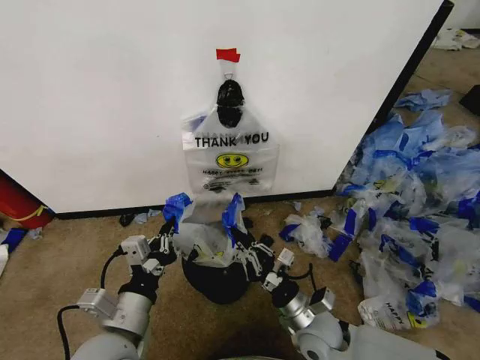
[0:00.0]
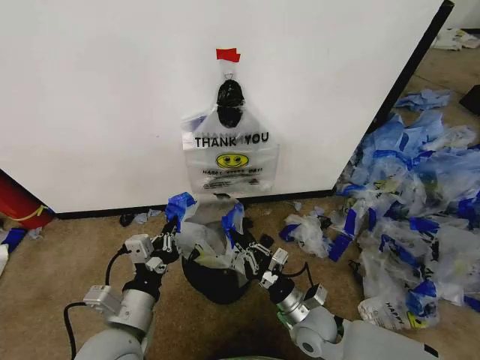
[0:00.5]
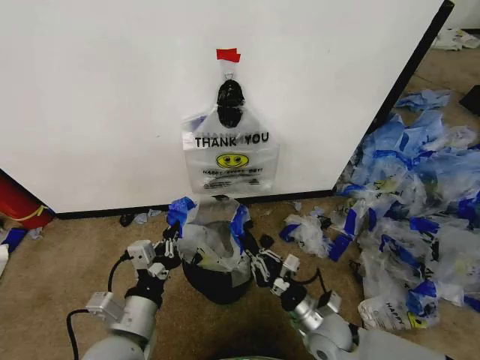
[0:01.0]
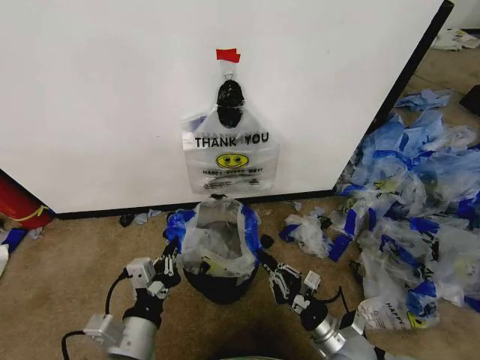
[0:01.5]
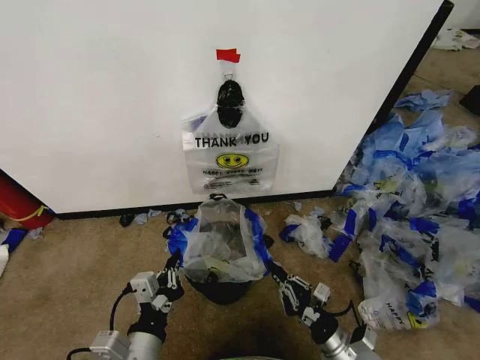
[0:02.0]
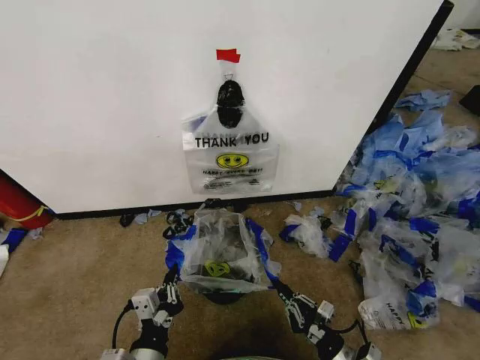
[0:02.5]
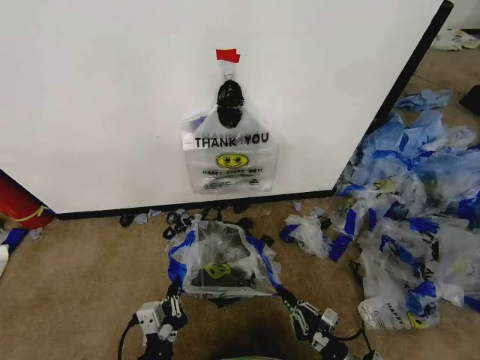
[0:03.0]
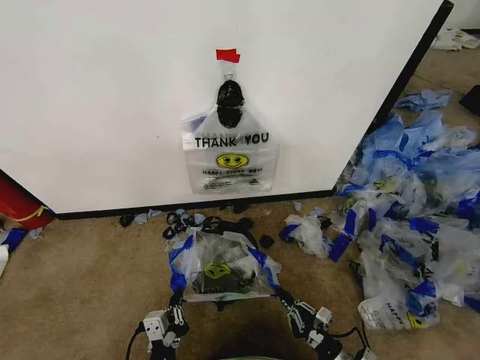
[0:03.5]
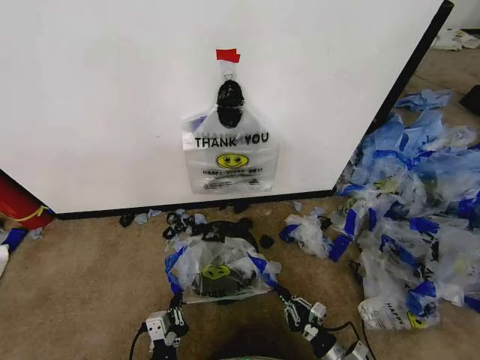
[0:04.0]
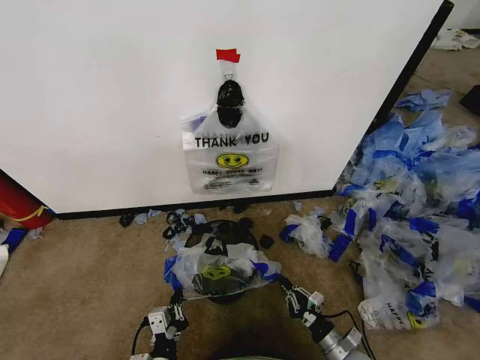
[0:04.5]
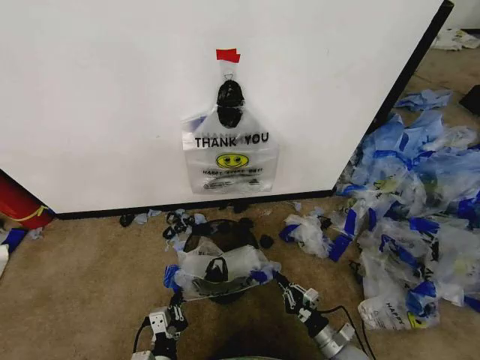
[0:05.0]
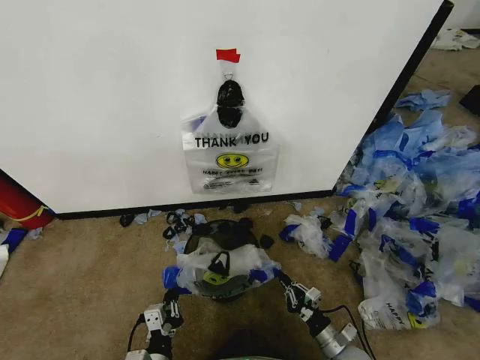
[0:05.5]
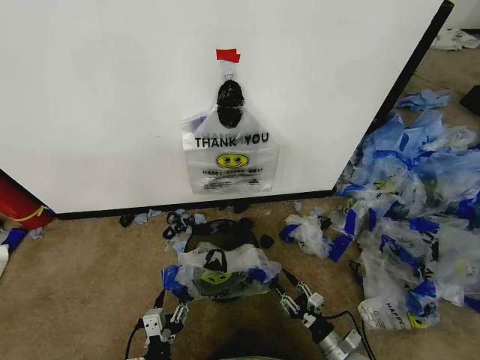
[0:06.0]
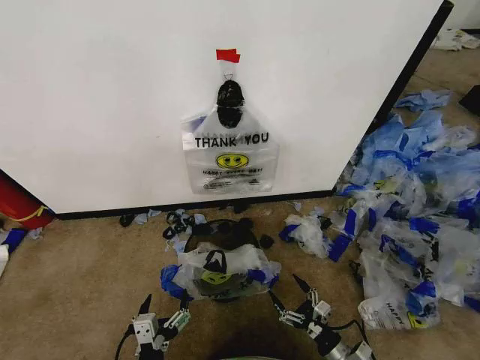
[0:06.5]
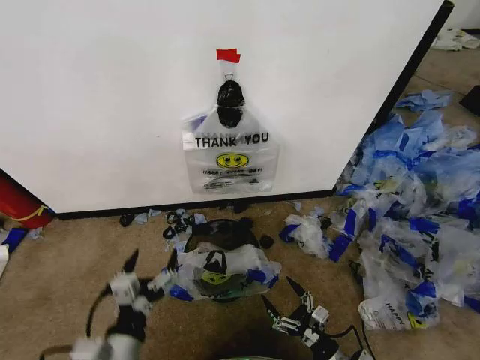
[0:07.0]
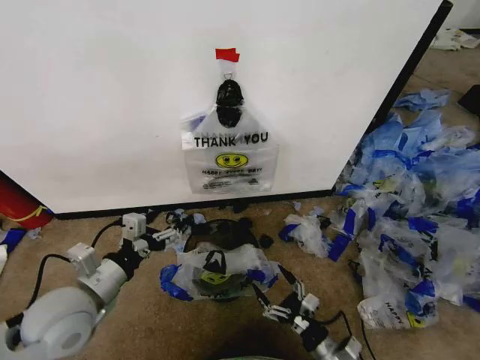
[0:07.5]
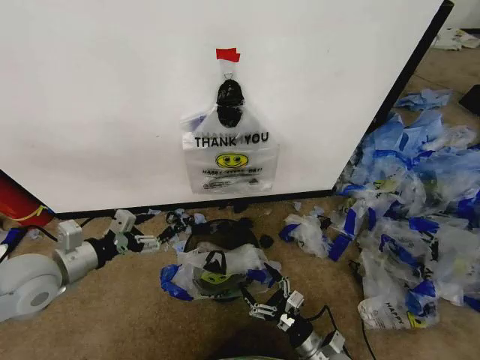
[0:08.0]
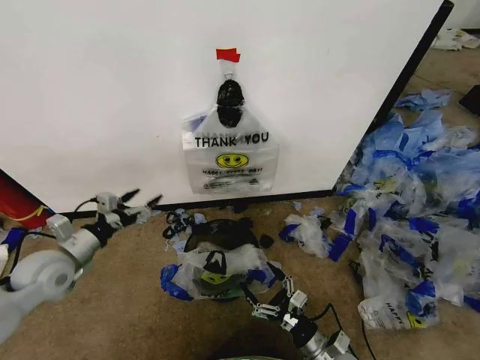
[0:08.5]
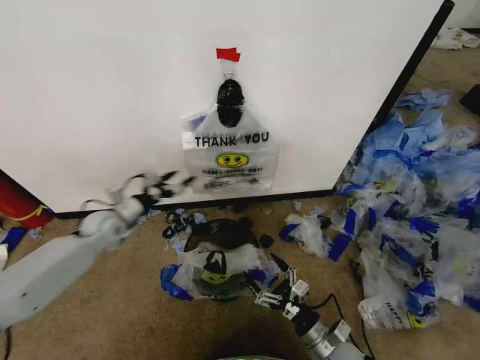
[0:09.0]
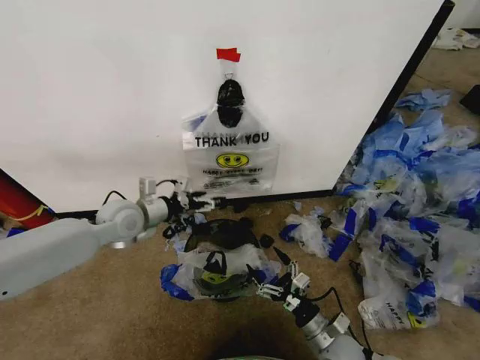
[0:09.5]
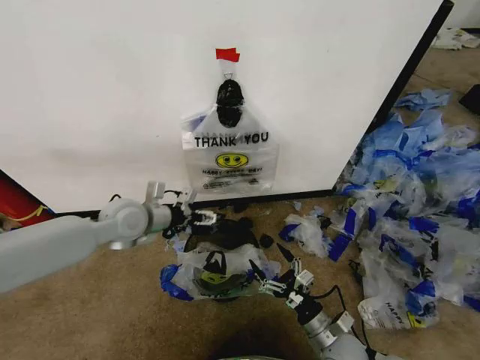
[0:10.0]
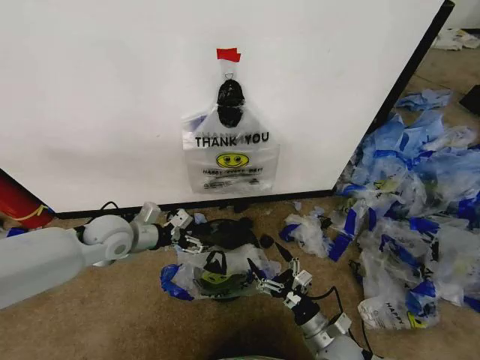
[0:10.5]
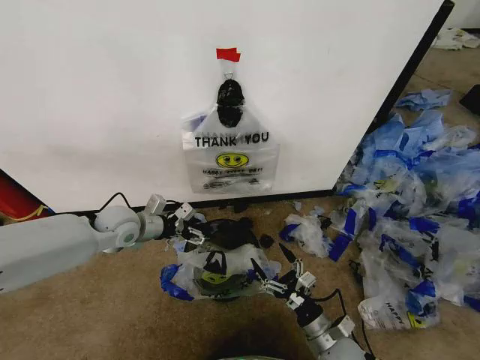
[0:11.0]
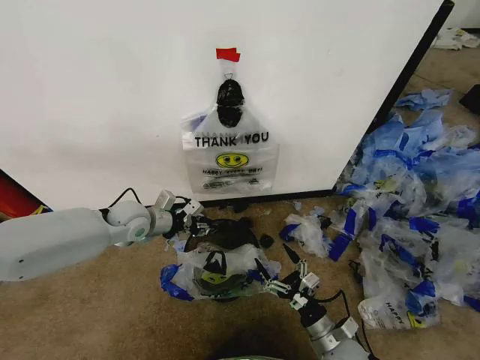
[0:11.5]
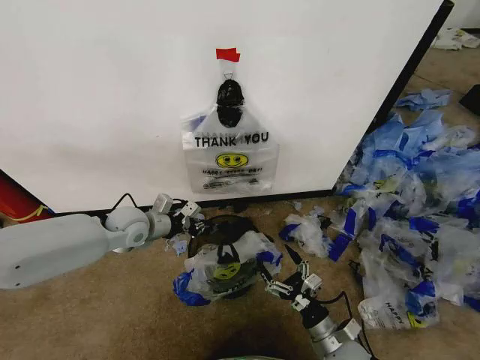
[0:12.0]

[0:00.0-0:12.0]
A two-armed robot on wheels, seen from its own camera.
Task of the whole recording: Pick up the garbage bag from the wall and place it over the trash bin.
0:00.0 to 0:02.0: The right gripper goes approximately 10 cm to the right and backward. Meanwhile the left gripper heads backward, covering some 5 cm.
0:02.0 to 0:04.0: The two grippers go roughly 10 cm downward.
0:04.0 to 0:06.0: The left gripper opens up, while the right gripper opens up.
0:06.0 to 0:08.0: The right gripper is displaced to the left and upward by approximately 10 cm, and opens; the left gripper heads upward, forward and to the left, covering approximately 35 cm.
0:08.0 to 0:10.0: The left gripper travels forward and to the right by some 15 cm.
0:10.0 to 0:12.0: The left gripper is displaced downward by about 5 cm, and closes up.

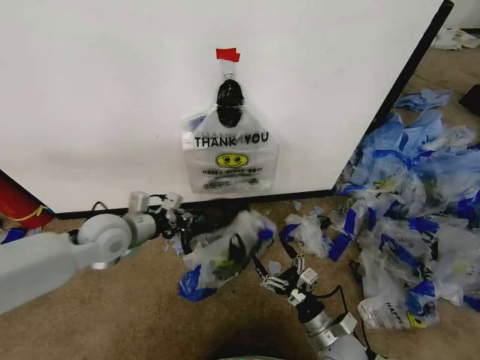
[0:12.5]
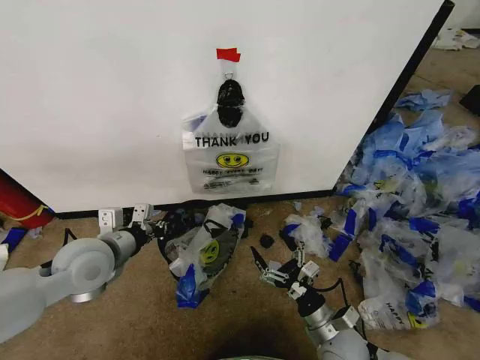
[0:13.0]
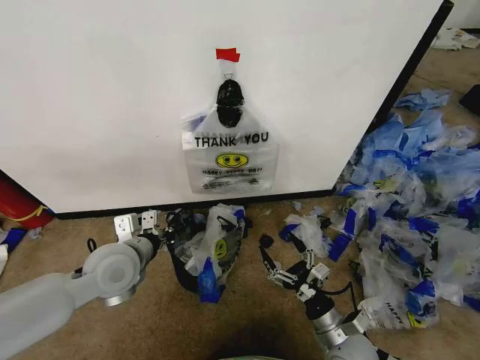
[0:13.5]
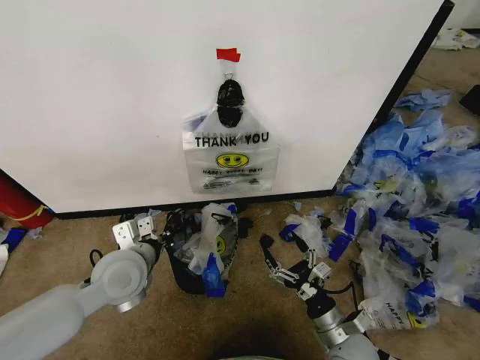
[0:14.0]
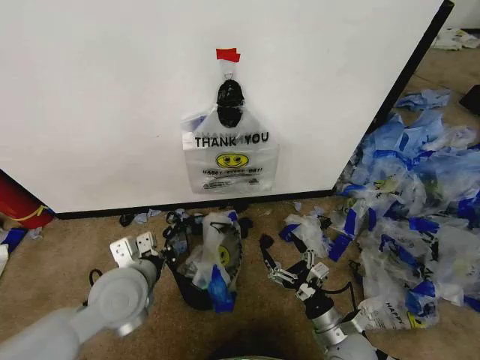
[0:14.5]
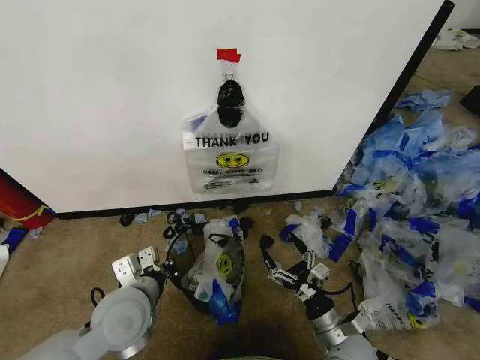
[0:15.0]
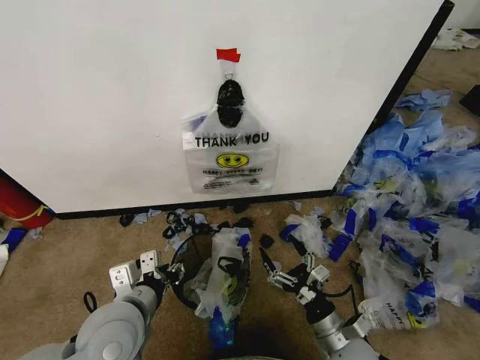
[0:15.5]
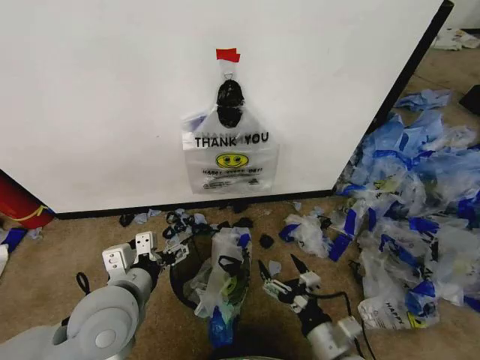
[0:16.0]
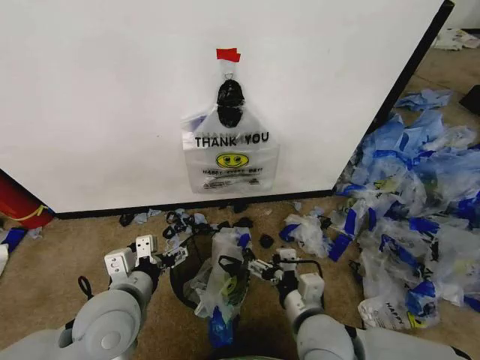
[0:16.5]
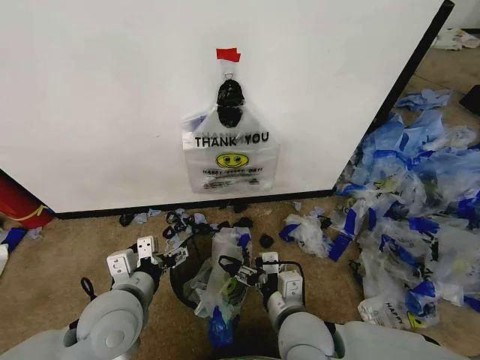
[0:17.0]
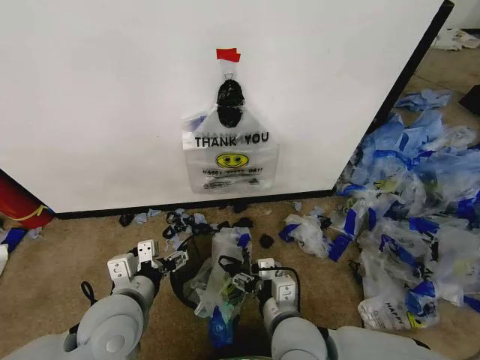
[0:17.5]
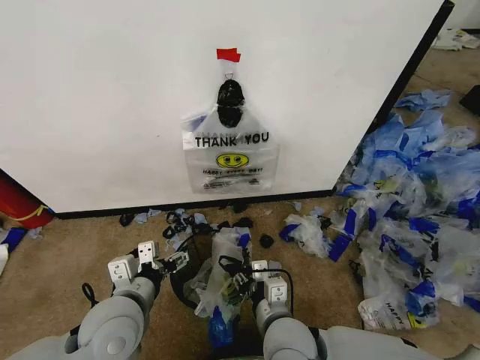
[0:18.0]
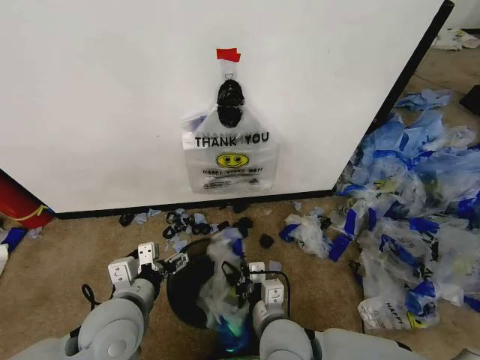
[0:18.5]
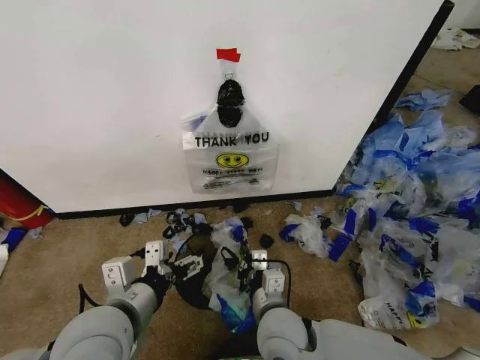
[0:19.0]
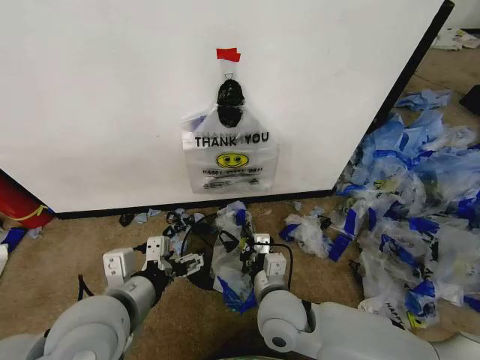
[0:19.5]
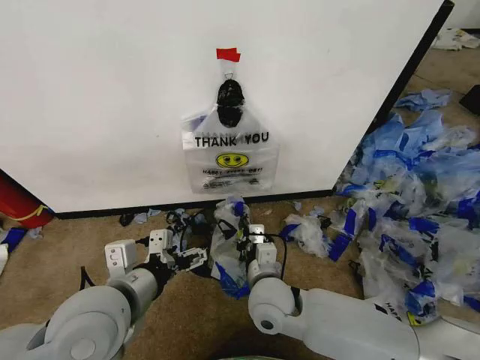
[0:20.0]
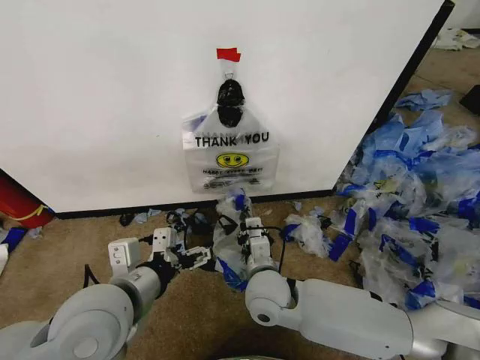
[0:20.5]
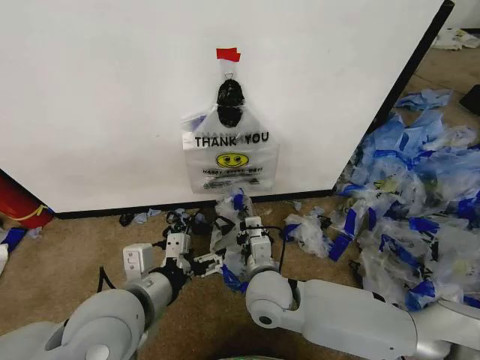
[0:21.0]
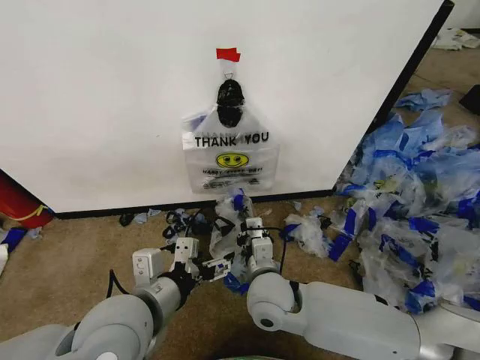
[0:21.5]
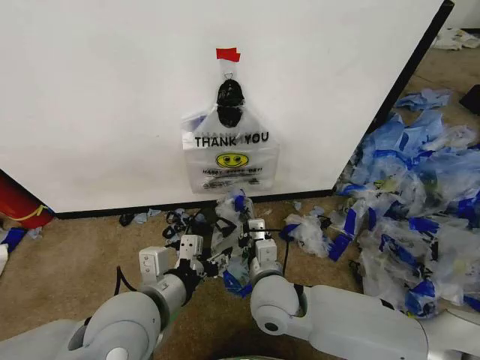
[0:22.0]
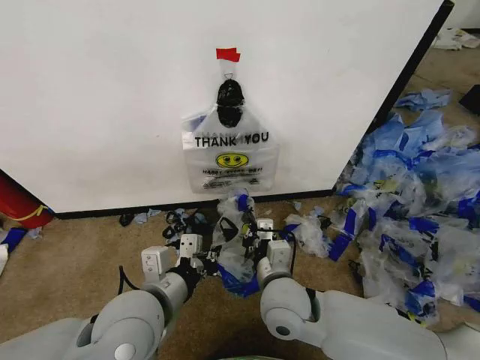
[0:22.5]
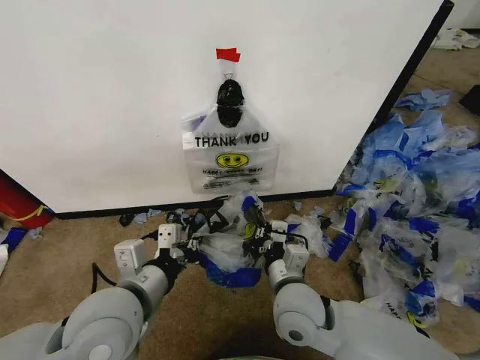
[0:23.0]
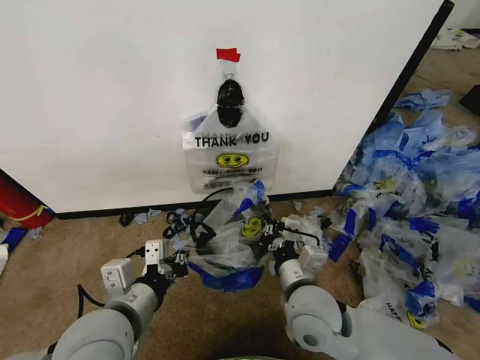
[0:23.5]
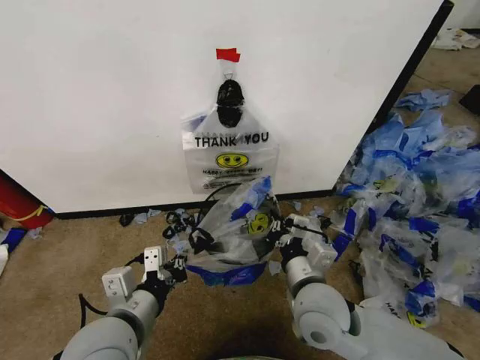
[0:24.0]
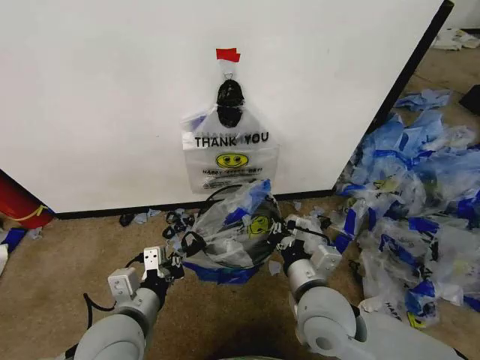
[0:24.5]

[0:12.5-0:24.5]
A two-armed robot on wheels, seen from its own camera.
Task of the whole recording: Pick up the garbage bag from the wall and place it over the trash bin.
0:12.5 to 0:14.5: The left gripper moves backward and to the right, roughly 15 cm.
0:14.5 to 0:16.5: The left gripper opens up; the right gripper is displaced upward and to the left by about 15 cm.
0:16.5 to 0:18.5: The right gripper heads to the left, covering about 5 cm, and closes.
0:18.5 to 0:20.5: The left gripper goes about 10 cm upward. Meanwhile the right gripper shifts some 10 cm forward.
0:20.5 to 0:22.5: The left gripper closes.
0:22.5 to 0:24.5: The left gripper heads downward, covering roughly 5 cm; the right gripper heads to the right, covering some 5 cm.

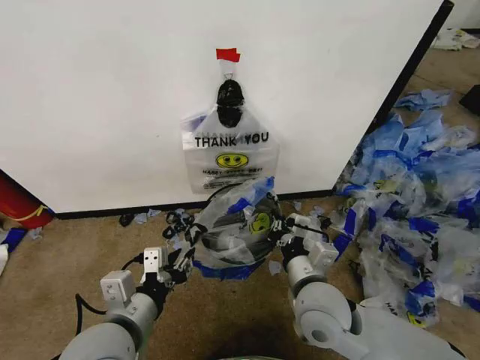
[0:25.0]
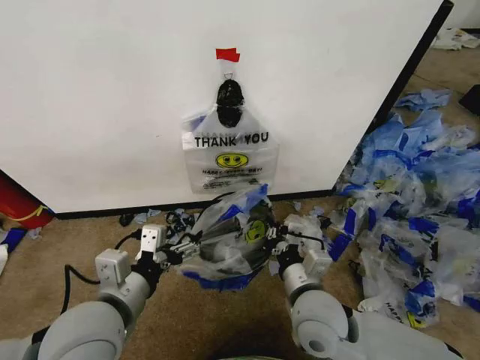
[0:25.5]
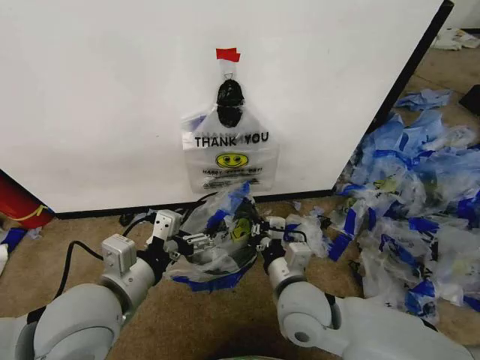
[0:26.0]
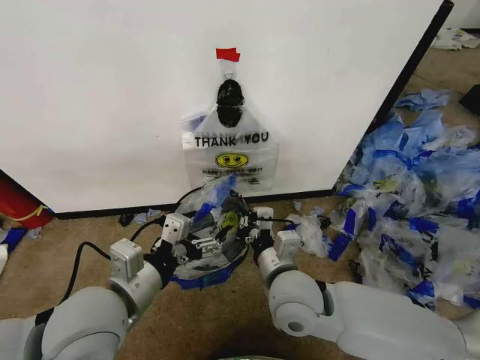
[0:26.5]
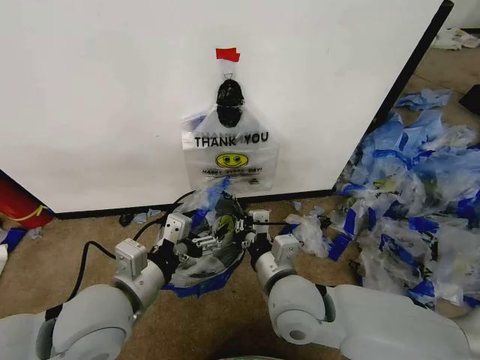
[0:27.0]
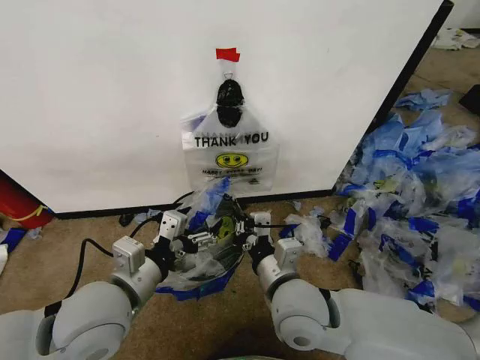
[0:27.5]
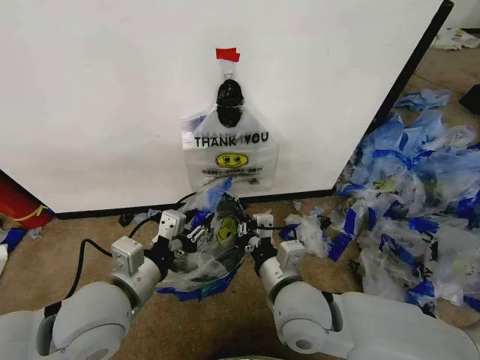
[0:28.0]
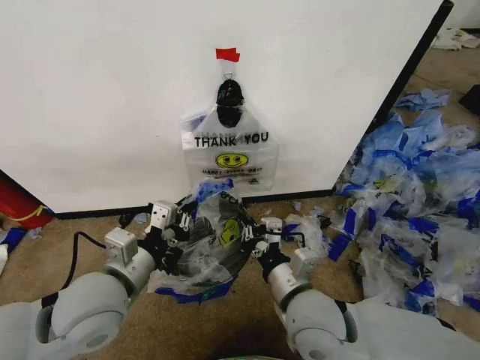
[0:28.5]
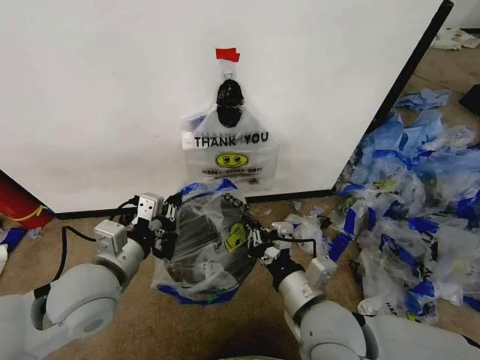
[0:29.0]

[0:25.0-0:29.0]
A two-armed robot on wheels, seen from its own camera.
Task of the whole recording: Pick up the garbage bag from the wall and place it over the trash bin.
0:25.0 to 0:27.0: The left gripper moves approximately 5 cm, and opens up, while the right gripper shifts by some 5 cm.
0:27.0 to 0:29.0: The right gripper moves about 5 cm. Meanwhile the left gripper changes place by some 5 cm, and closes up.
